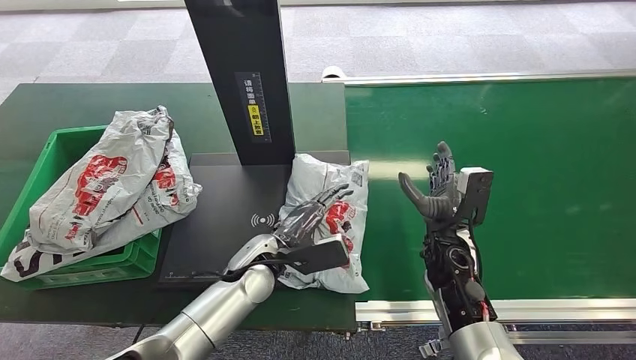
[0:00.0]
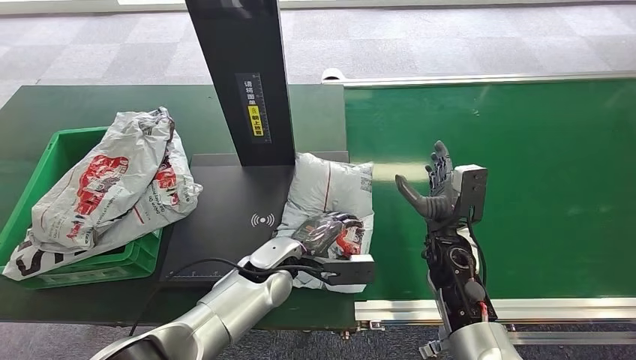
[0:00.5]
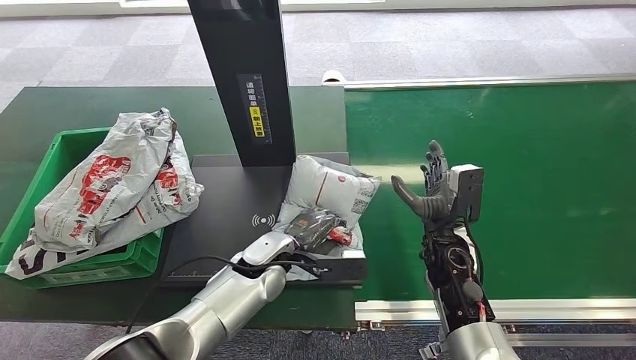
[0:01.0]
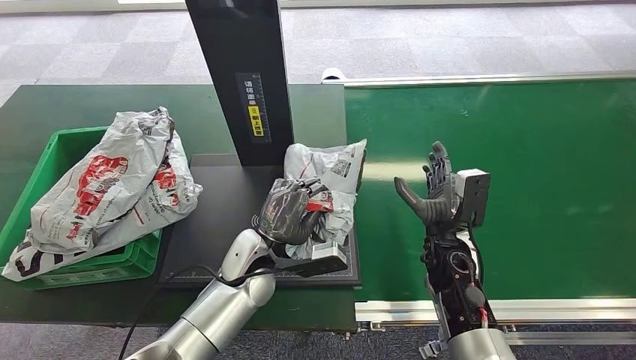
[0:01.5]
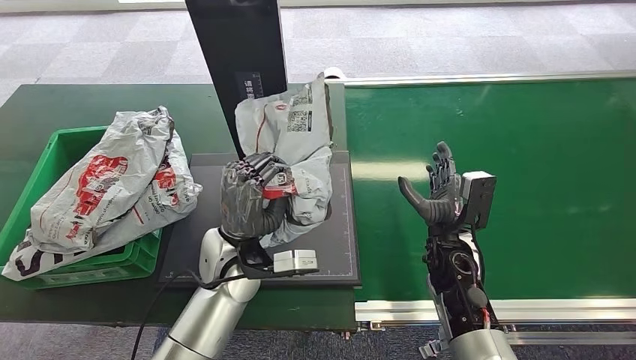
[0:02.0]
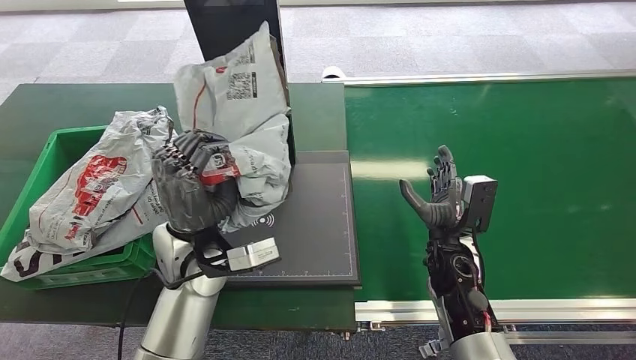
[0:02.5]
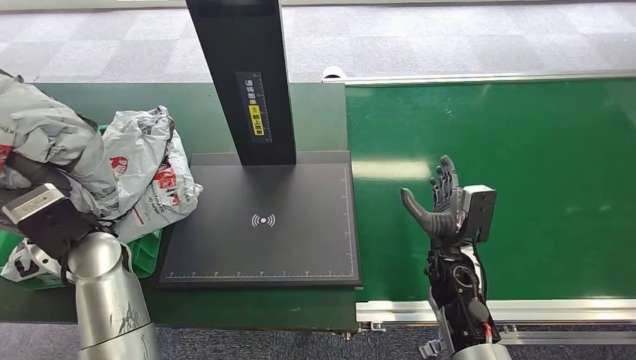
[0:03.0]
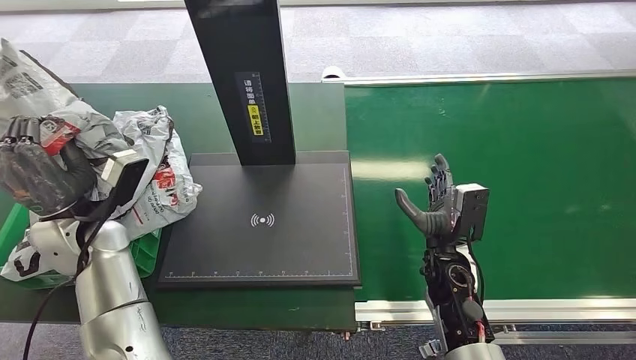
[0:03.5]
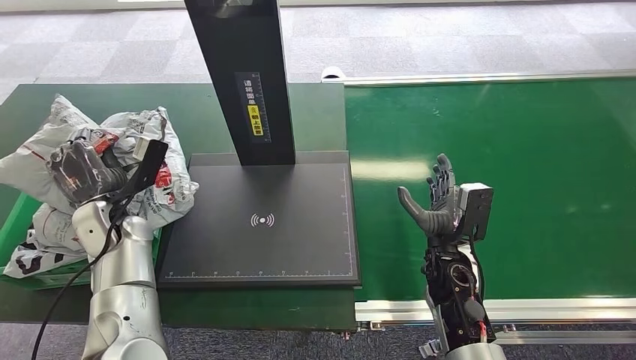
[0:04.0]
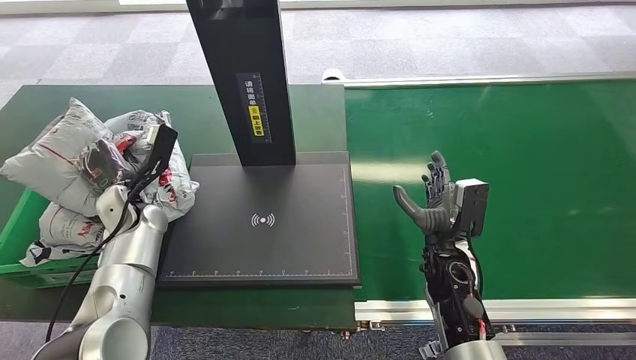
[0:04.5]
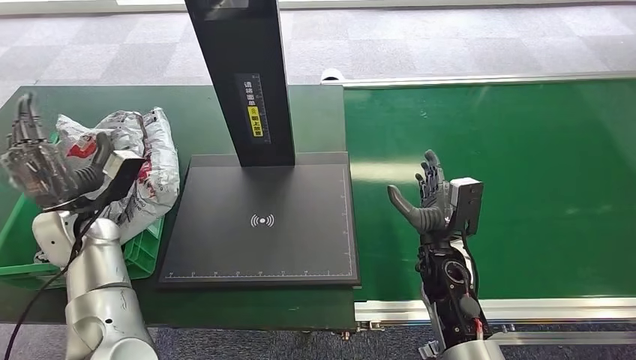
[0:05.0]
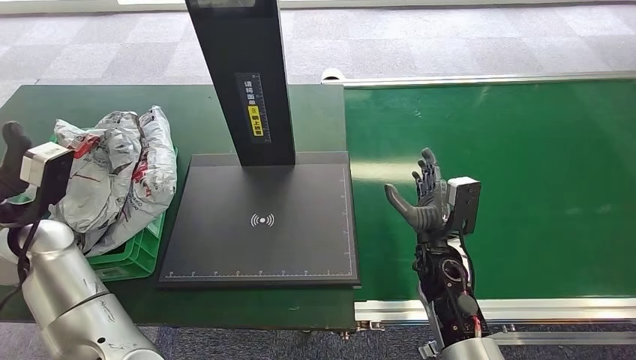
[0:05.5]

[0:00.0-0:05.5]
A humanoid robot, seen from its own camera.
Step, 0:02.5 to 0:05.5: Place the package into the parcel locker.
0:00.0 to 0:02.0: The left hand is displaced upward by approximately 5 cm.
